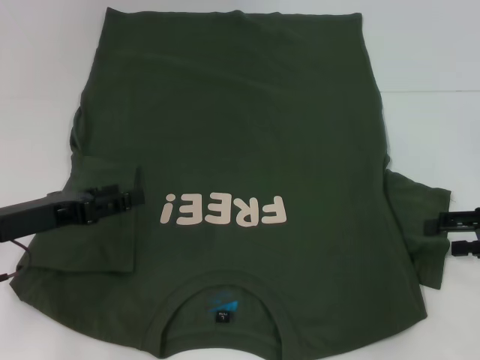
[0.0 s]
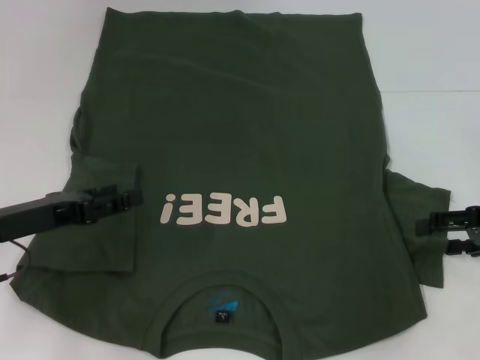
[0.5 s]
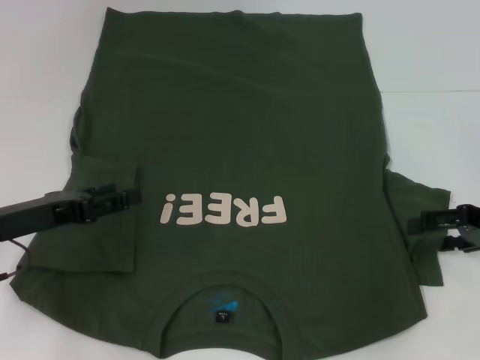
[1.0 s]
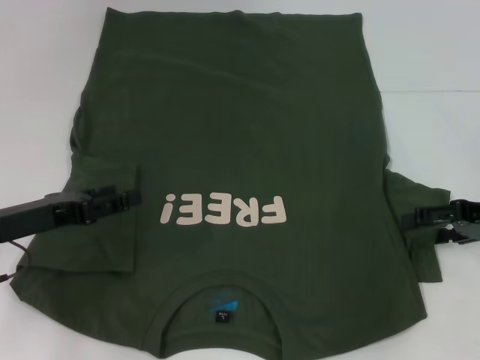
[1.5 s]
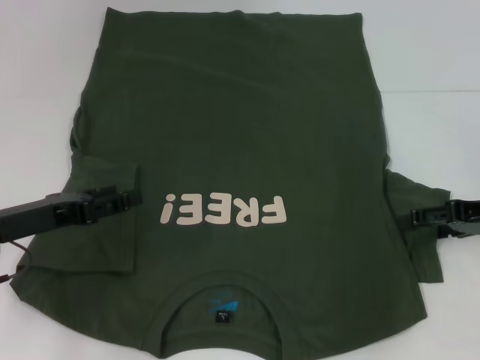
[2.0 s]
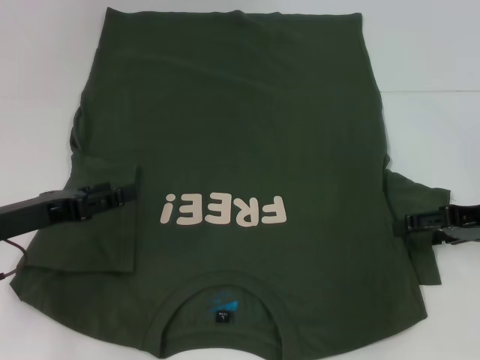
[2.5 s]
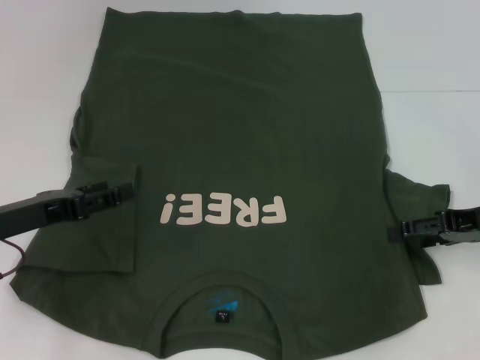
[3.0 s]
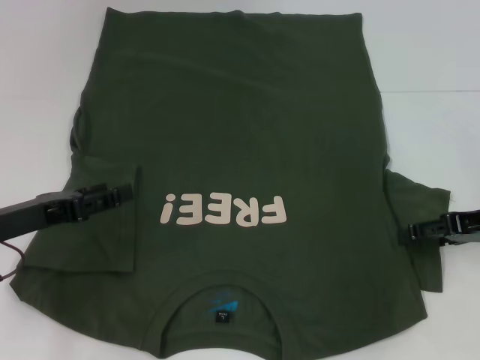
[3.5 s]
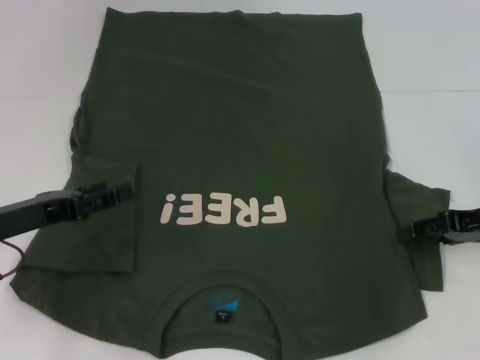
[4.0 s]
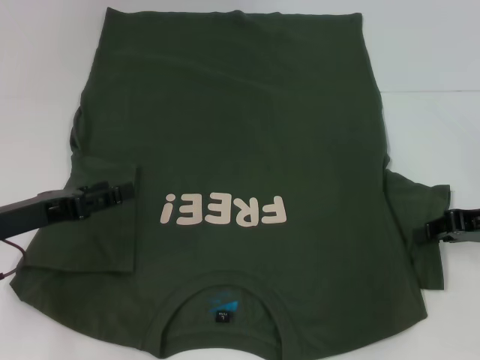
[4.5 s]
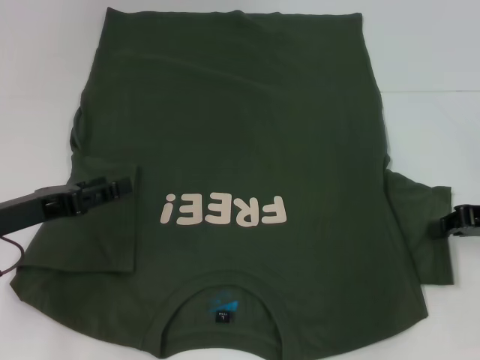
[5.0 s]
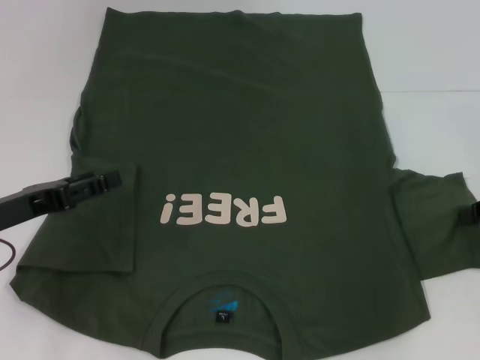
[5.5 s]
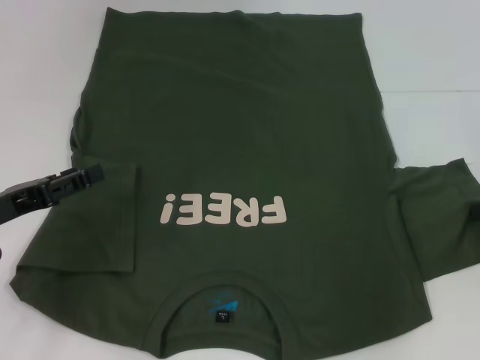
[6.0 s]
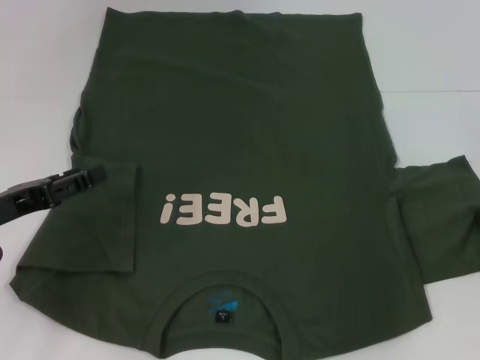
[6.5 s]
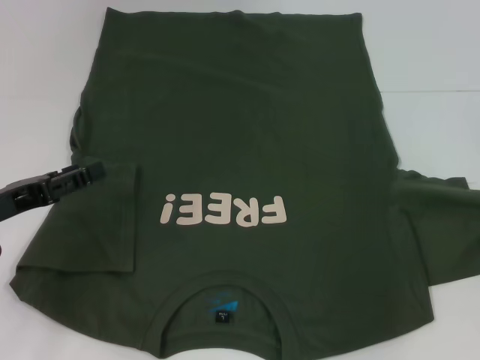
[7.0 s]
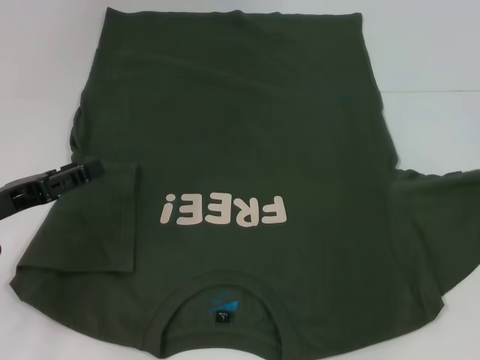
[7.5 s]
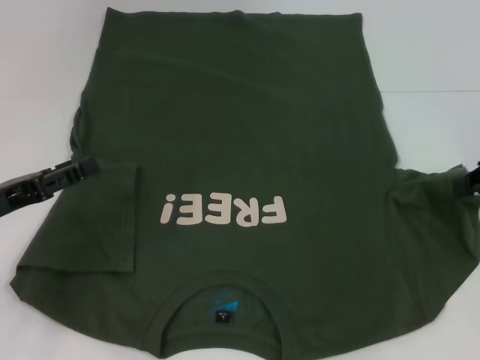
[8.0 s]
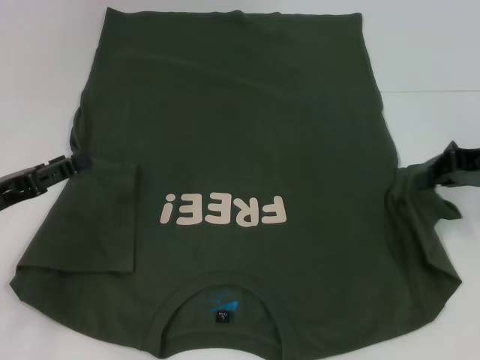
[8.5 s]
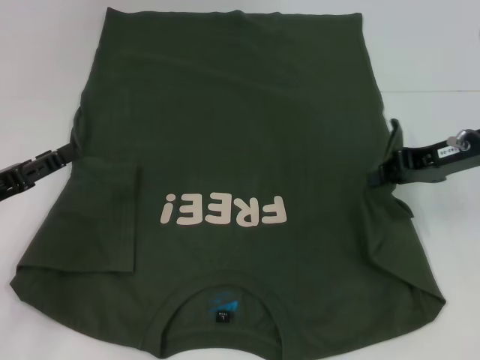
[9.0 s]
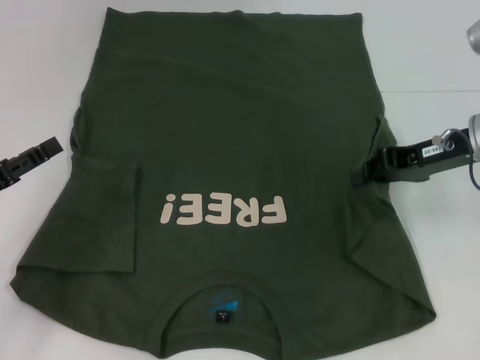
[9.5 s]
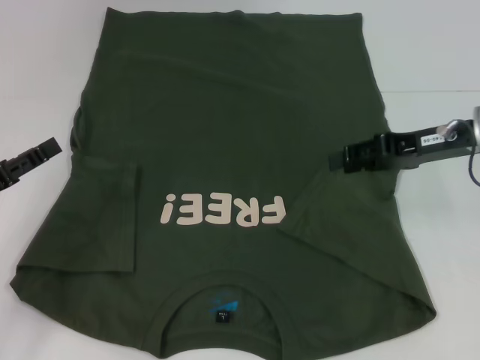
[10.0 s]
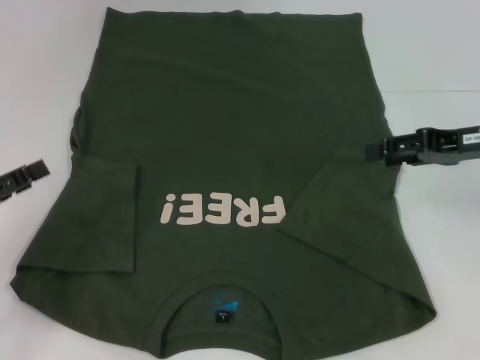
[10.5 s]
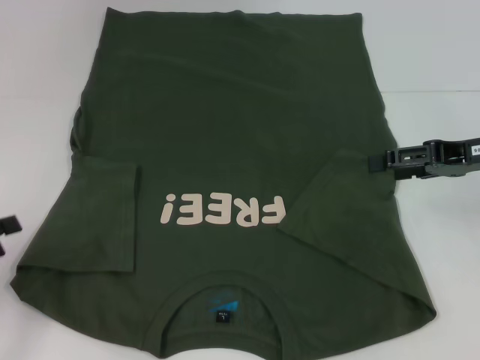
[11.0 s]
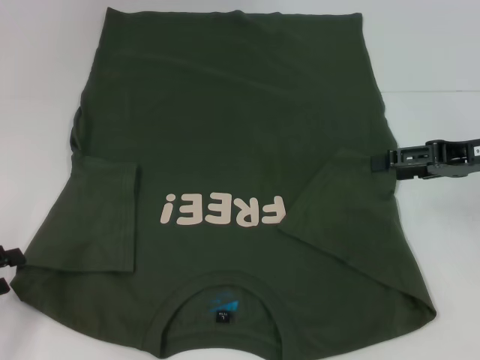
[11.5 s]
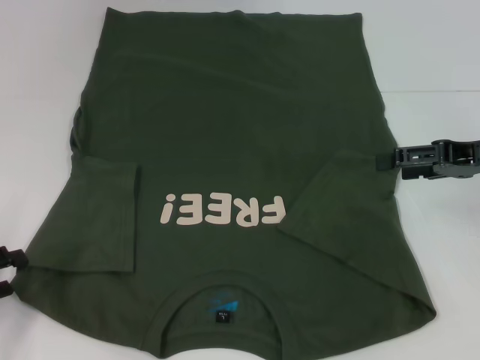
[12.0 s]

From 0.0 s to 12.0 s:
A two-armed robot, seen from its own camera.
Step, from 0.0 s to 10.0 s: Fold the bottom right sleeve with your right hand.
From 0.0 s to 4.0 s: The grippers move only a little.
From 4.0 s to 6.0 s: The right gripper shifts some 5 cm to the right, and closes.
From 6.0 s to 8.0 s: The grippers stay close to where they were, moving slightly.
From 8.0 s to 10.0 s: The right gripper shifts about 10 cm to the left.
From 10.0 s to 12.0 s: The right gripper moves to the right, some 5 cm, and opens; the left gripper moves backward, about 5 cm.

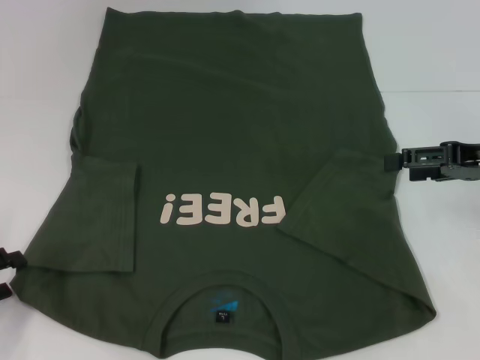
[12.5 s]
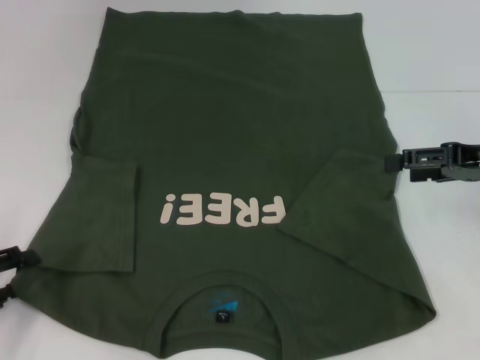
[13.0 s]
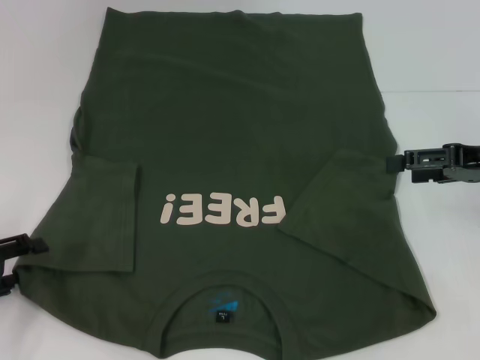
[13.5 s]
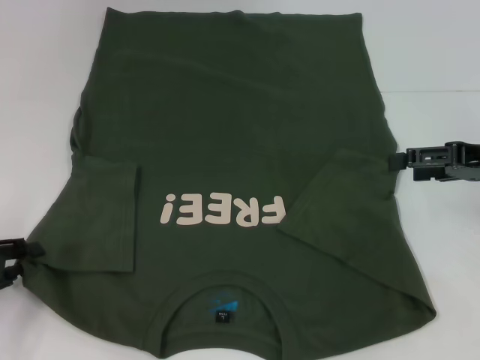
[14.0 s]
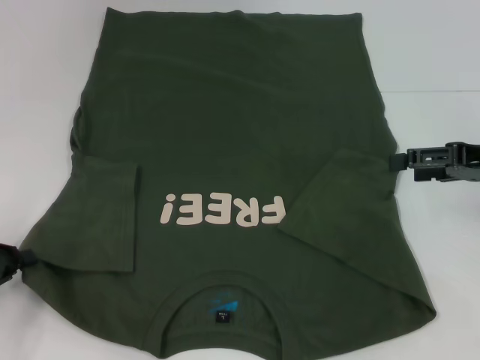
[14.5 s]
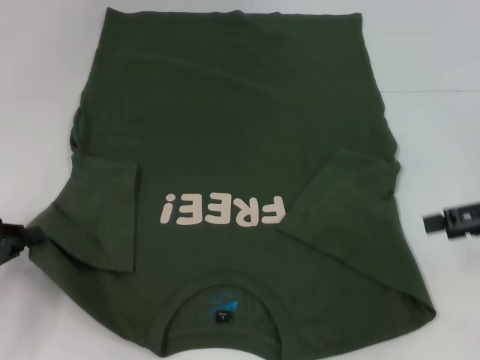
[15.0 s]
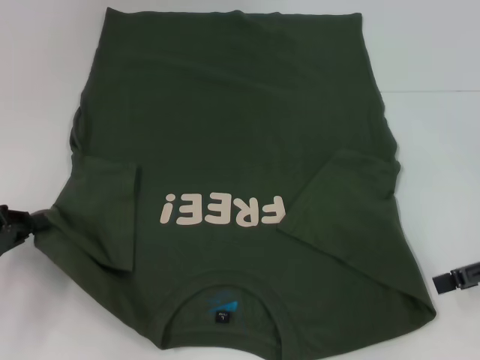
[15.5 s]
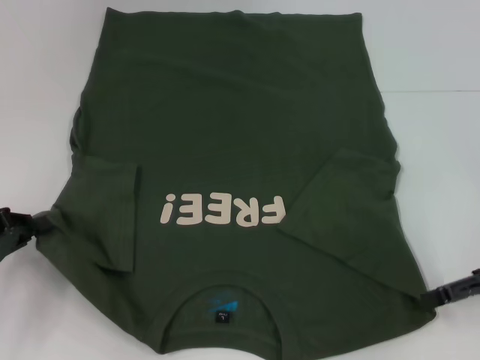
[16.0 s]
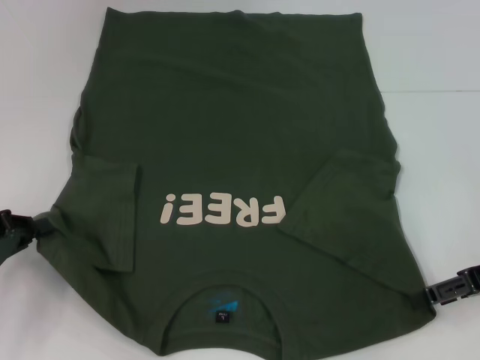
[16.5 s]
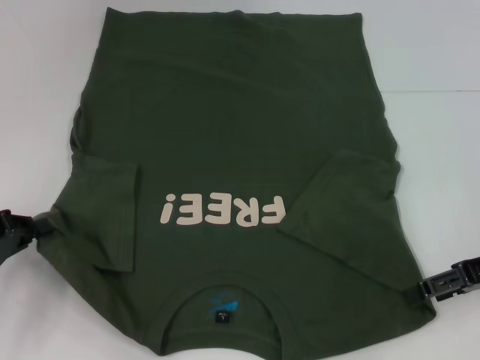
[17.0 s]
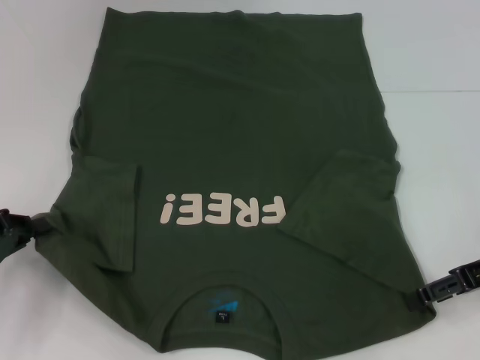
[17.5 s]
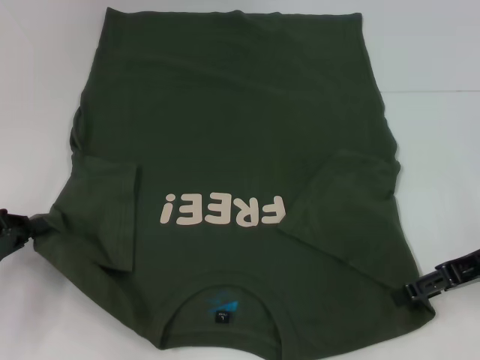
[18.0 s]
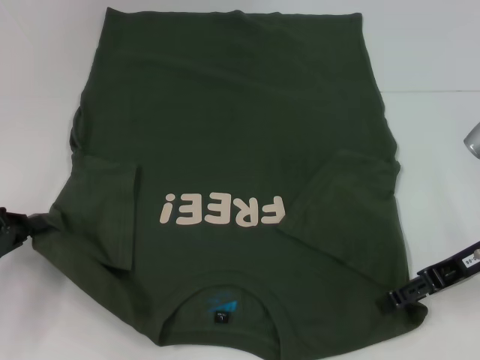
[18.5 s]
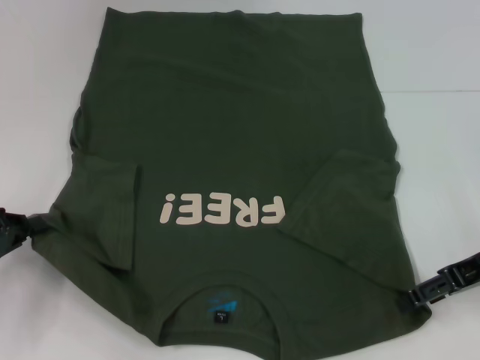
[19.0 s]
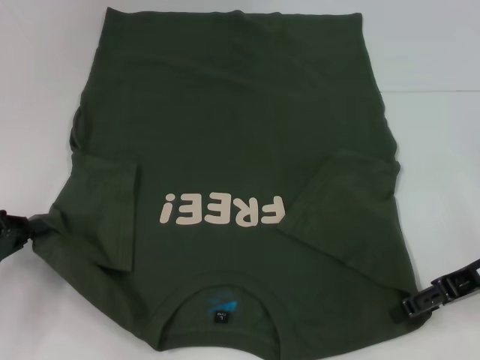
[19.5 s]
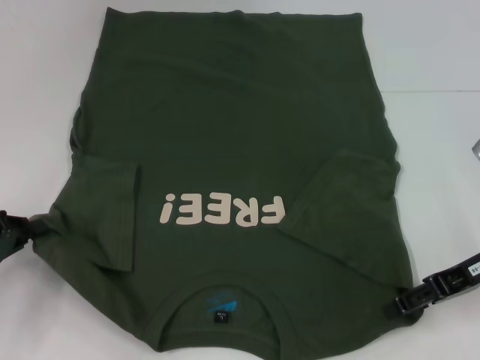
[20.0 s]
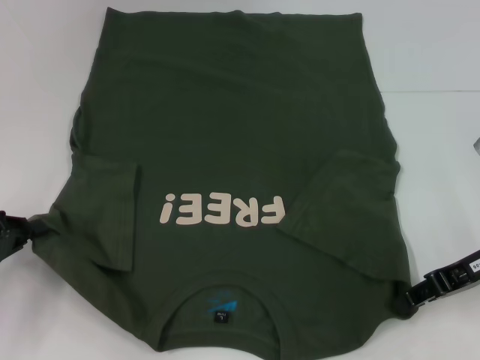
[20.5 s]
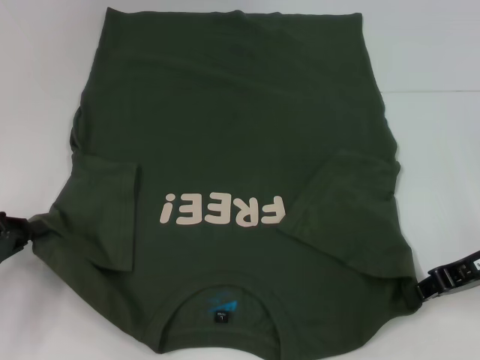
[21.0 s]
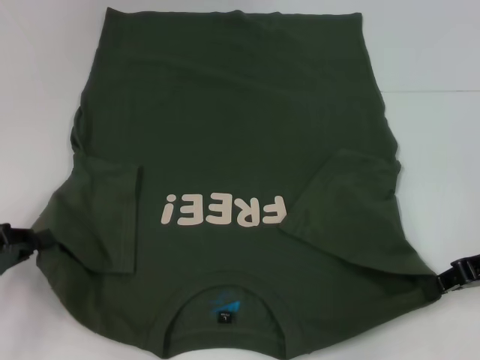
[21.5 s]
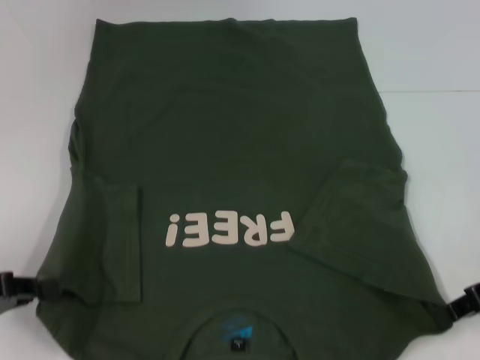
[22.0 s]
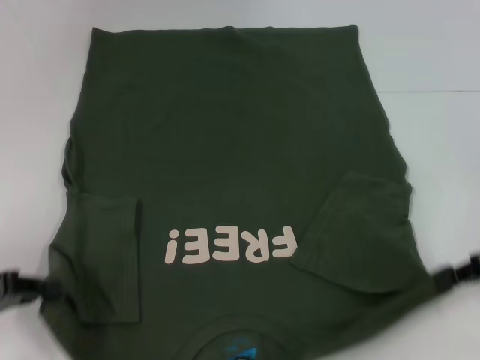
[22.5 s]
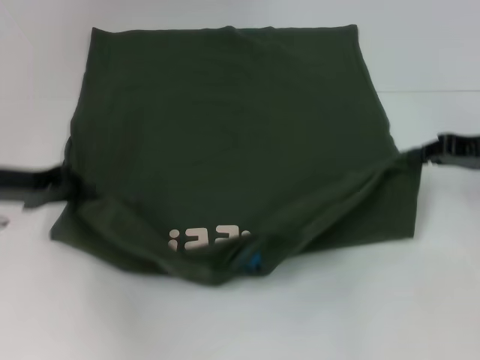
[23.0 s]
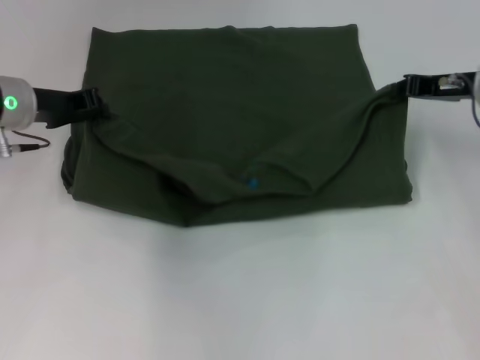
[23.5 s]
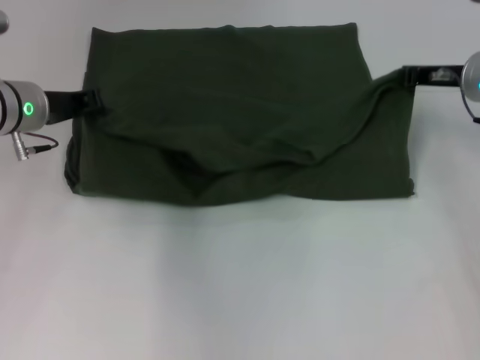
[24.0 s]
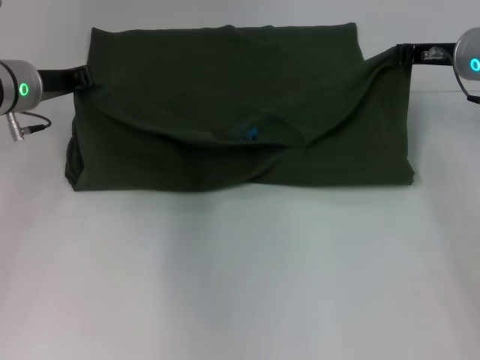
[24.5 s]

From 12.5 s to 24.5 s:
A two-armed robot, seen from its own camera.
Step, from 12.5 s to 14.5 s: Grab the bottom left corner with your left hand.
Step, from 15.0 s to 18.5 s: Grab the bottom right corner with your right hand.
From 12.5 s to 14.5 s: The left gripper closes.
From 14.5 s to 16.5 s: The right gripper shifts by some 5 cm.
From 16.5 s to 20.5 s: The grippers make only small movements.
From 20.5 s to 22.5 s: The right gripper shifts roughly 5 cm to the right, and closes up.
From 22.5 s to 24.5 s: The right gripper moves forward and to the left, about 20 cm, while the left gripper moves forward and to the right, roughly 25 cm.

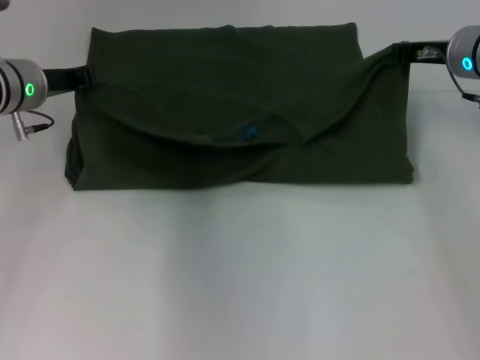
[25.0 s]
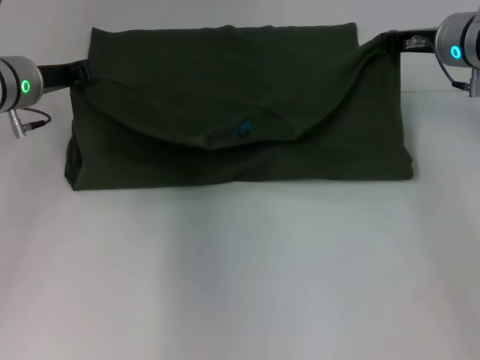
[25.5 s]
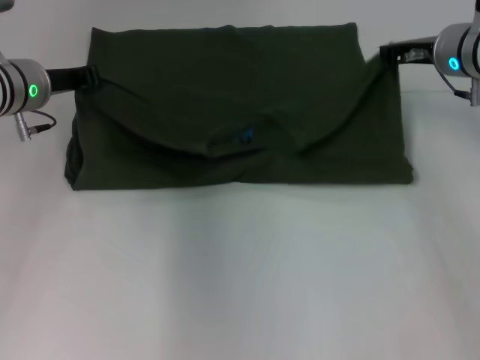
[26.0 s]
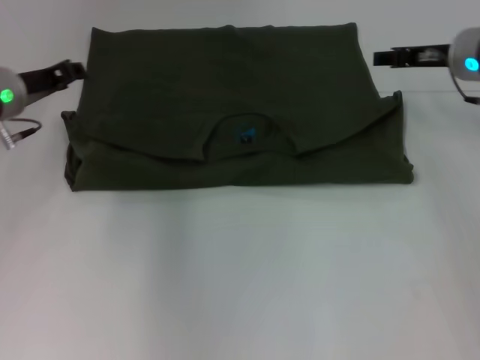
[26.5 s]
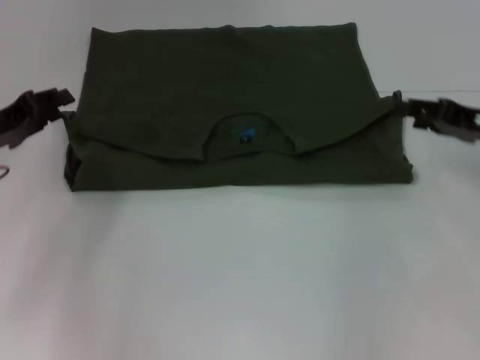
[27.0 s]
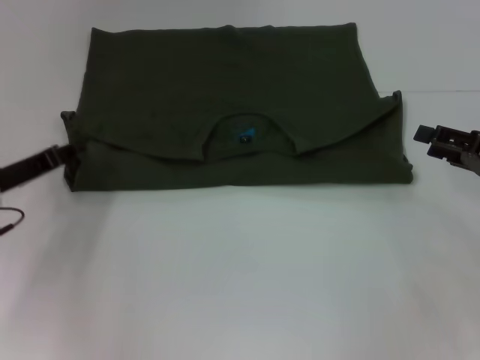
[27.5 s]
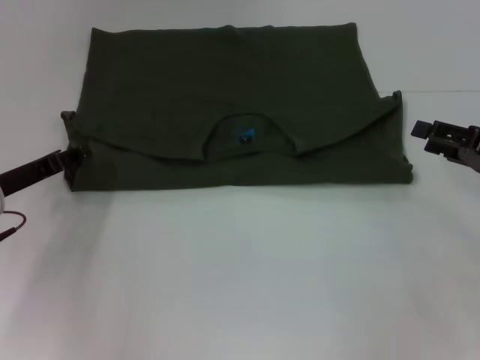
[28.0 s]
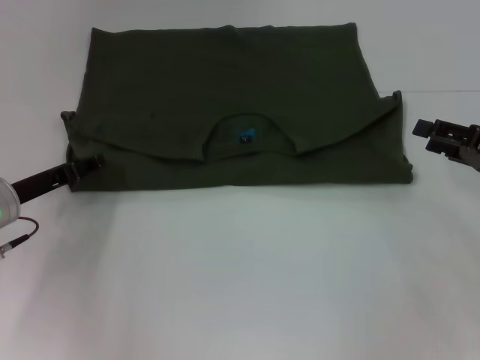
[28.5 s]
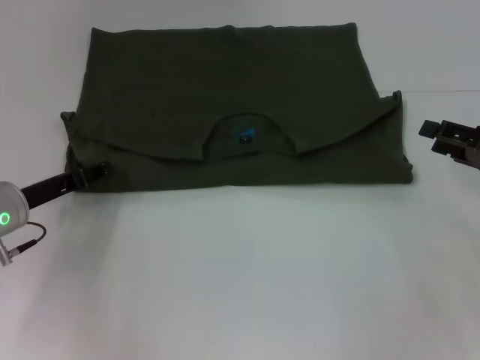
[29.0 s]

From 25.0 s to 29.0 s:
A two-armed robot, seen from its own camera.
From 25.0 s to 27.0 s: The right gripper moves backward and to the right, roughly 10 cm, and opens up. Meanwhile the left gripper heads backward and to the left, covering some 10 cm, and opens up.
From 27.0 s to 29.0 s: The right gripper shifts by about 5 cm. Meanwhile the left gripper moves downward, about 5 cm.
